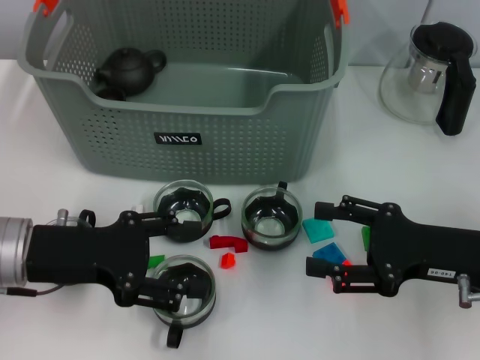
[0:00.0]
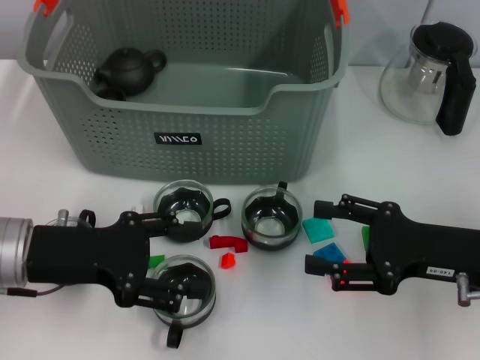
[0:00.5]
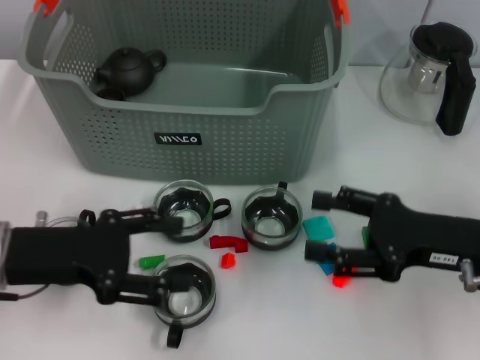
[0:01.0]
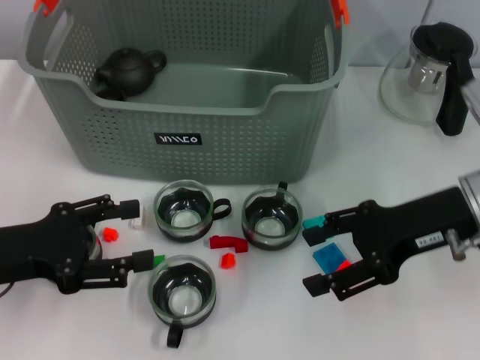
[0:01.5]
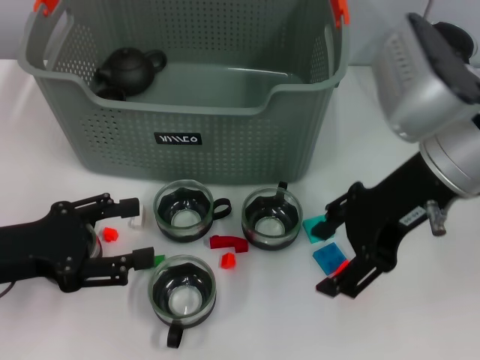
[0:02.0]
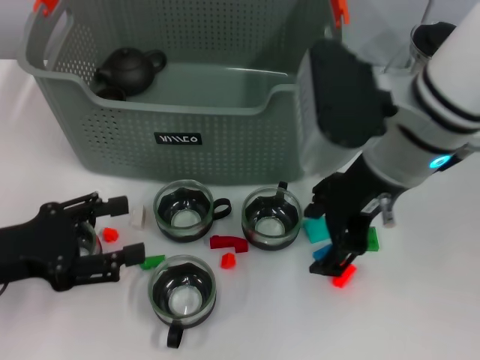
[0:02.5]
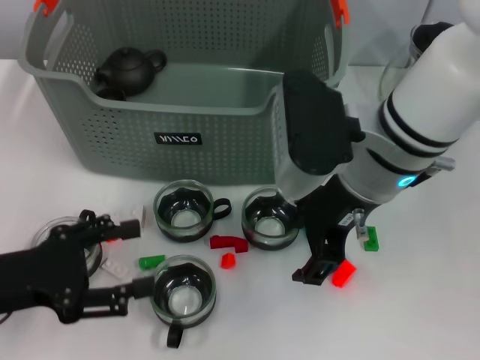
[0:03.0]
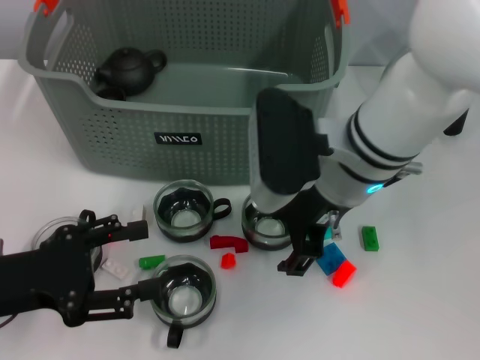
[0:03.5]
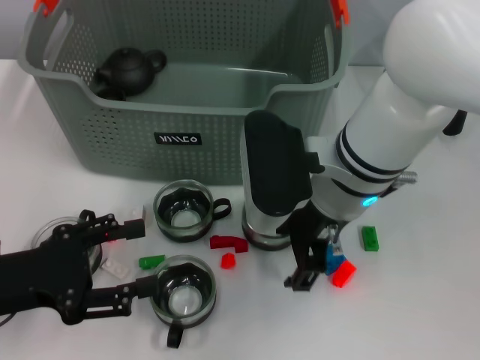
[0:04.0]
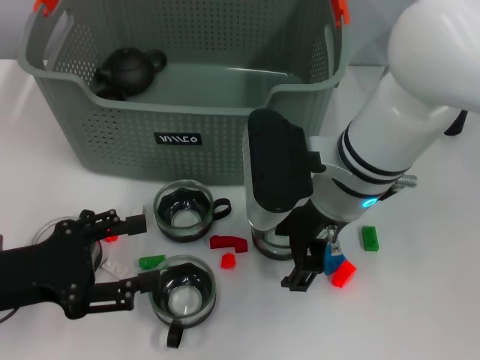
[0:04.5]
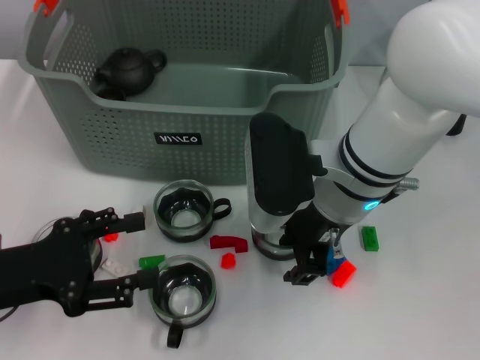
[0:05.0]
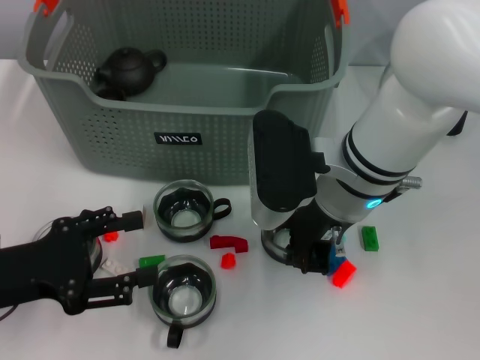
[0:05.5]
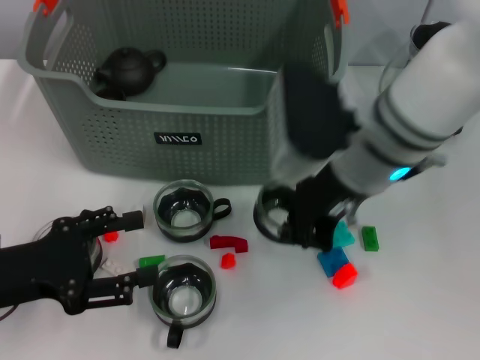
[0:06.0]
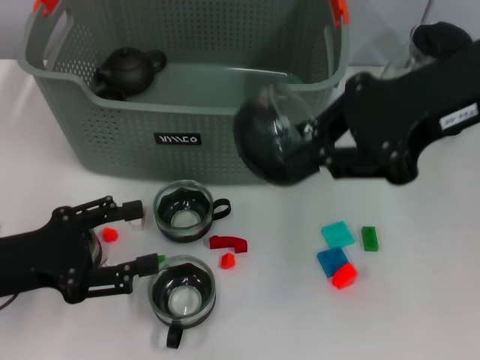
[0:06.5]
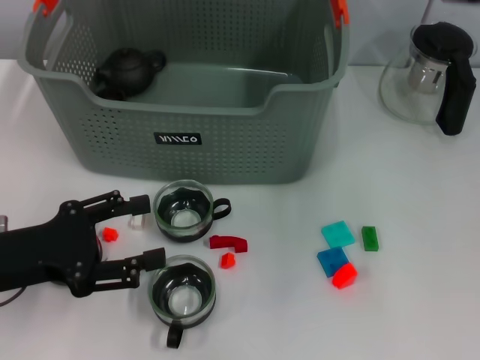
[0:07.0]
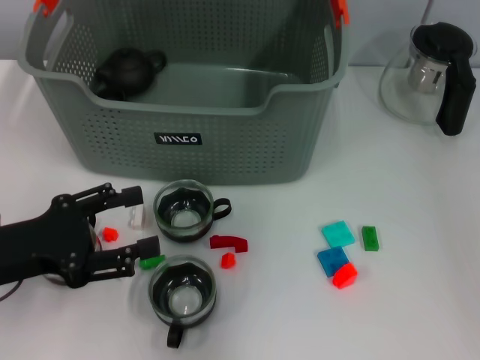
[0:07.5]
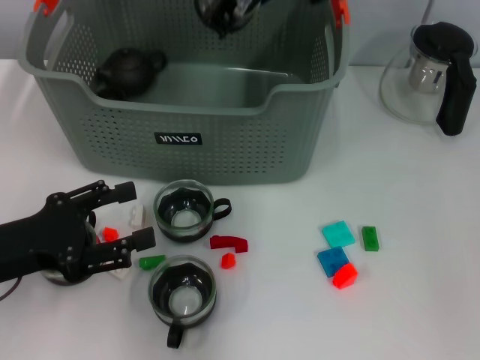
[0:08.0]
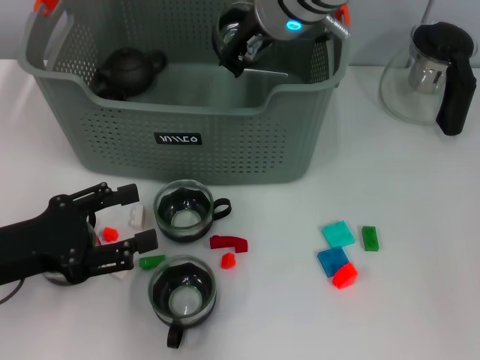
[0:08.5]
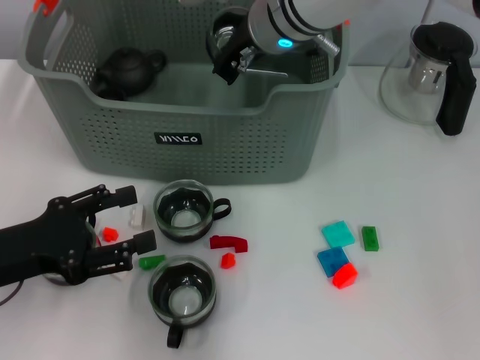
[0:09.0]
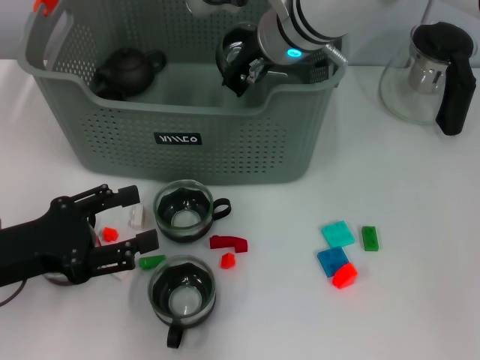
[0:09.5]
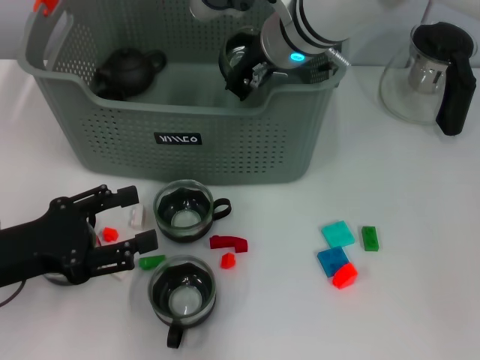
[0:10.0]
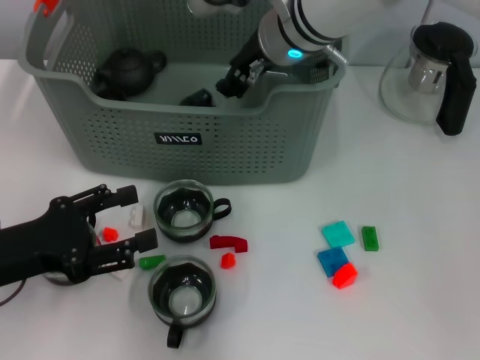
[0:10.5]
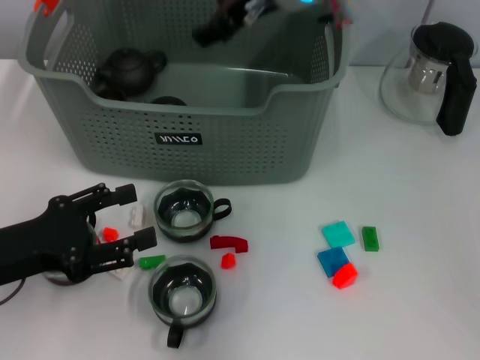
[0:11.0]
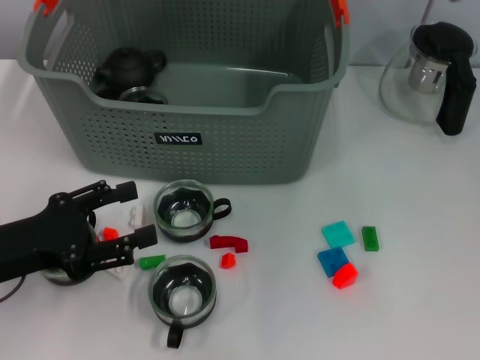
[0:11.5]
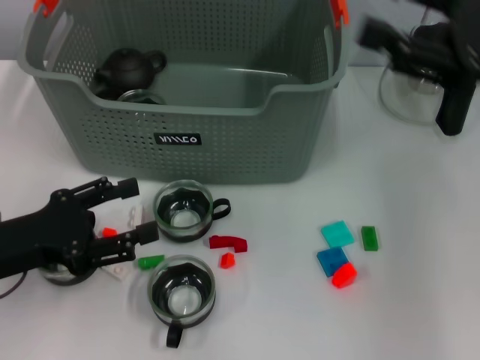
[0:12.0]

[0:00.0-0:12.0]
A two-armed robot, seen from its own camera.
Task of the whole recording: pick up the teacup on the table and place it into the storage bin, pick up the block on the table and place it into the storage bin.
Step, 0:00.0 to 0:05.5: Grasp the cup with right gripper.
Step, 0:06.0 to 0:10.0: Place the cup in the storage box with right gripper.
0:00.0 to 0:02.0: The left gripper moves roughly 5 cm; the right gripper heads upward, to the left and forward, covering roughly 15 cm.
0:02.0 to 0:04.0: The right gripper is displaced to the left and downward by approximately 10 cm.
0:04.0 to 0:06.0: The right gripper closes its fingers.
0:06.0 to 0:08.0: The right gripper heads forward, upward and to the left, covering about 15 cm.
0:08.0 to 0:10.0: The right gripper travels downward by about 5 cm.
0:10.0 to 0:12.0: The right gripper shifts roughly 25 cm to the right and backward, and opens.

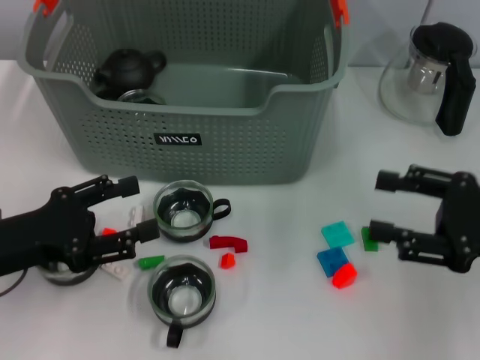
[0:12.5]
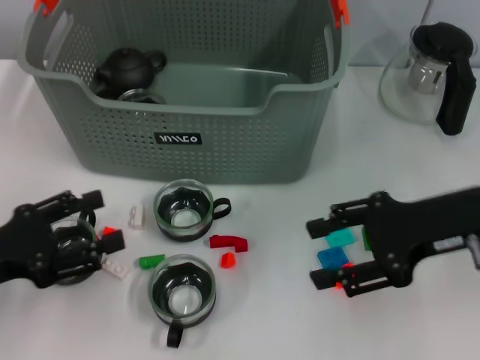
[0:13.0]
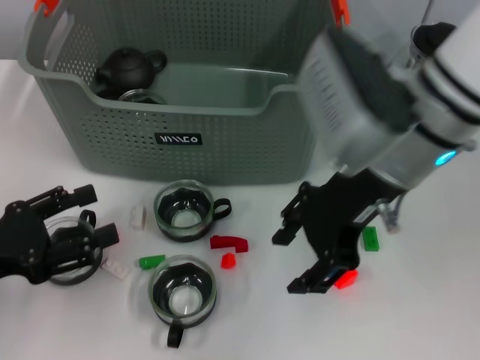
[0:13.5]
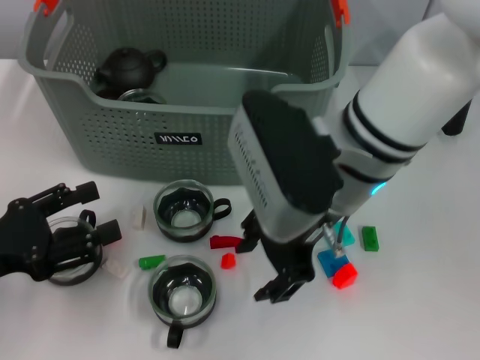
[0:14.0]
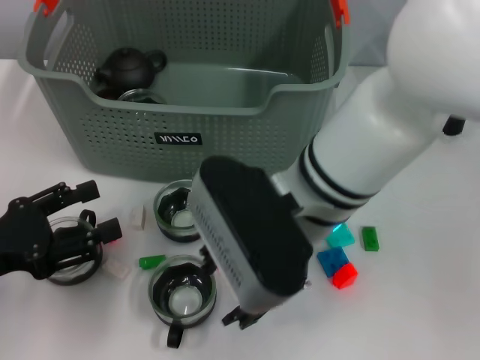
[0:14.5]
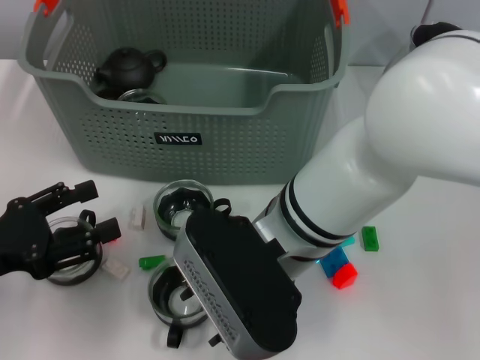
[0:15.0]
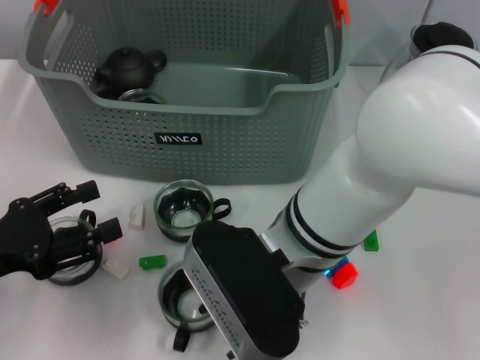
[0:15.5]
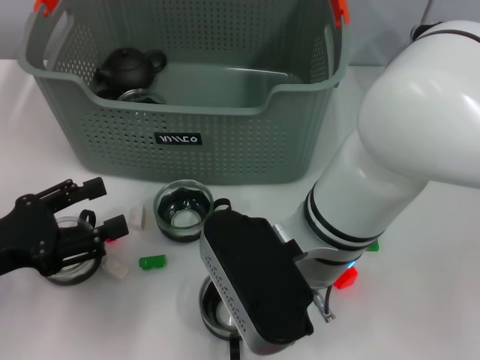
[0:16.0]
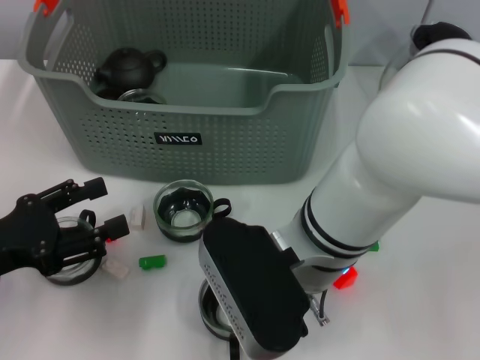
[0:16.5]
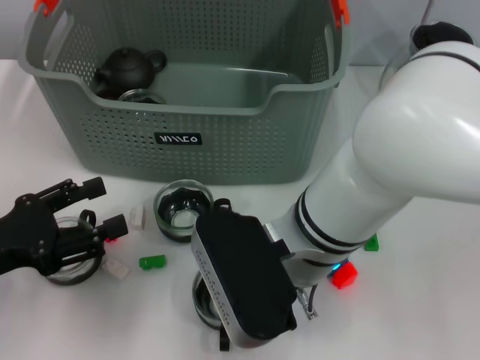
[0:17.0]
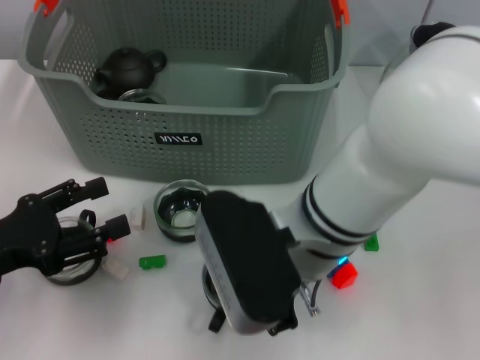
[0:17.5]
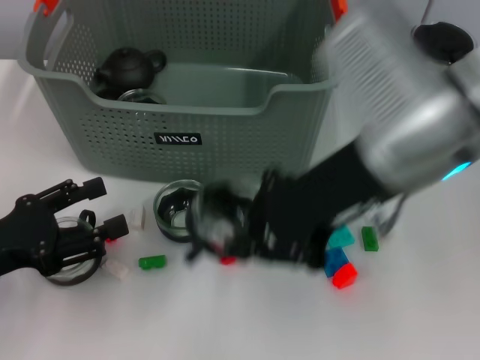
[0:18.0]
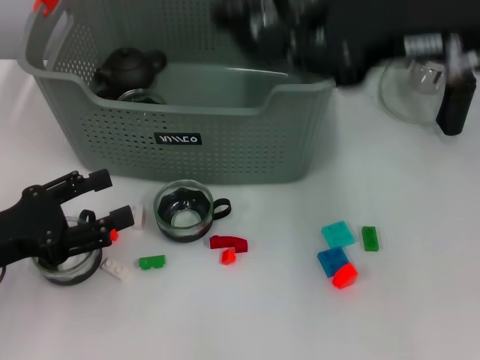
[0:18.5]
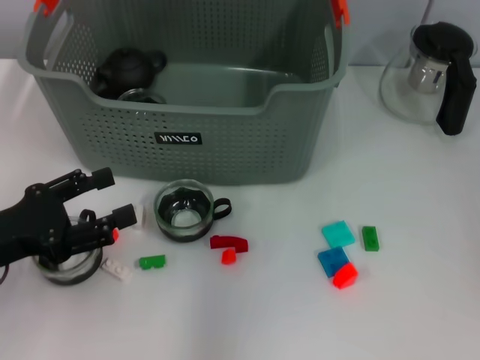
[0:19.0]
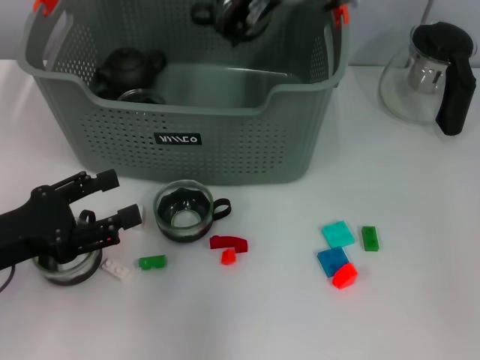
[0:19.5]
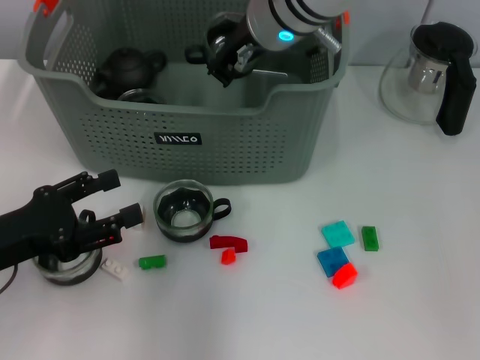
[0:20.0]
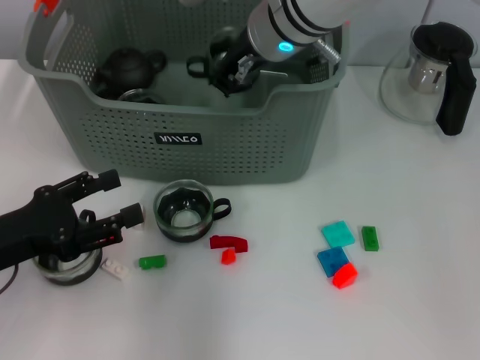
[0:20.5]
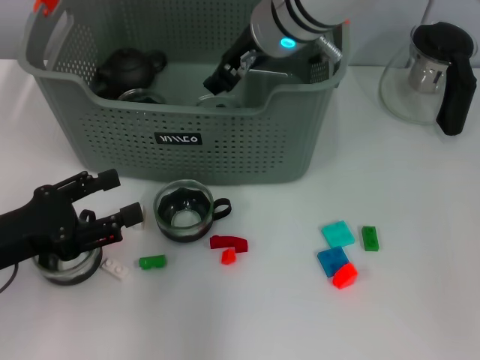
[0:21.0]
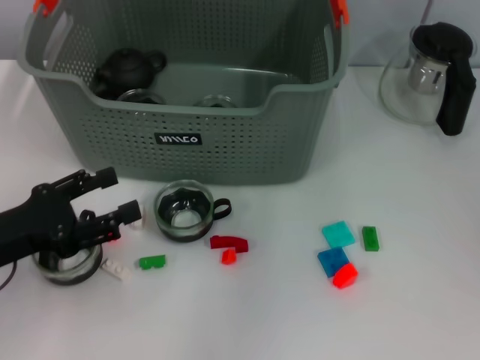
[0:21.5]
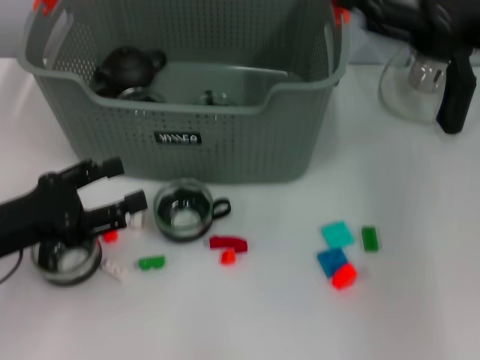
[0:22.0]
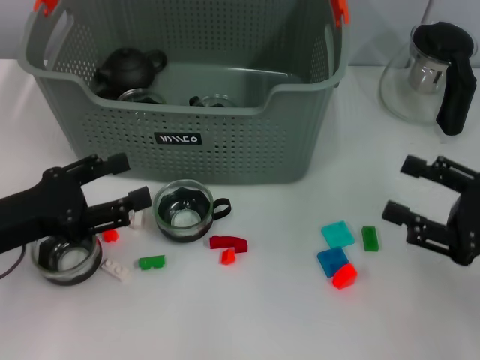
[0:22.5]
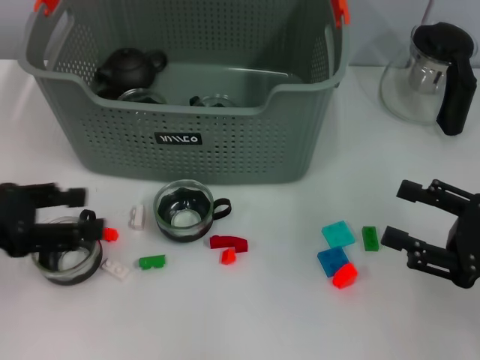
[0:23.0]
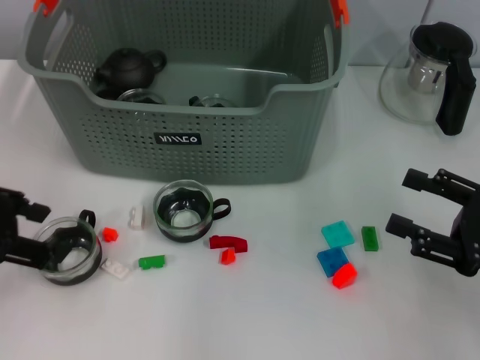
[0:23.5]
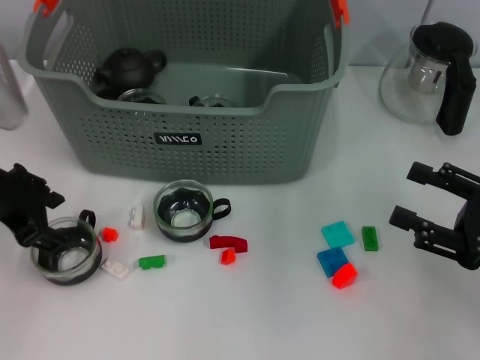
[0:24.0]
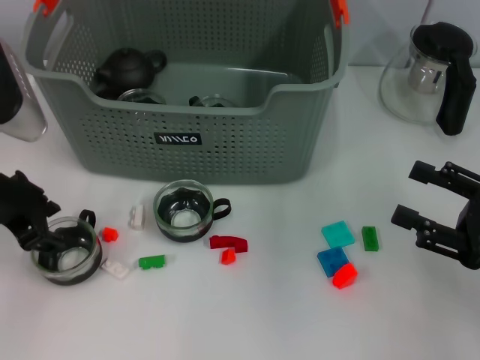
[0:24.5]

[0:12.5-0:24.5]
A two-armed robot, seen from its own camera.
Task of the whole recording: pick up the teacup on the table and place it into the storage bin, pick up the block on the table and place it into the storage bin.
Step, 0:12.5 to 0:17.0: Grasp the cup with right gripper.
Step, 0:17.5 to 0:20.5: Place the cup in the storage box with right gripper.
0:12.5 to 0:14.5: The right gripper heads to the left, covering approximately 25 cm.
0:16.5 to 0:18.5: The right gripper goes approximately 20 cm upward and to the right, and closes its fingers.
0:18.5 to 0:20.5: The right gripper moves to the left, forward and downward, some 20 cm.
0:20.5 to 0:22.5: The right gripper goes some 35 cm to the right, backward and downward, and opens its fingers.
0:22.5 to 0:24.5: The left gripper shifts roughly 10 cm upward and forward.

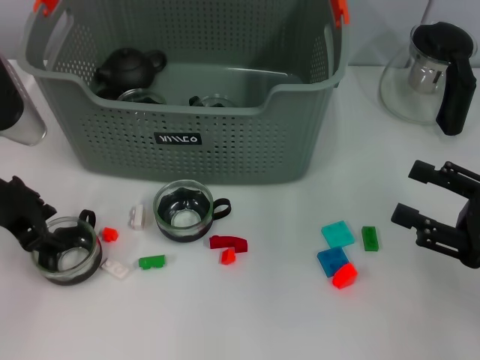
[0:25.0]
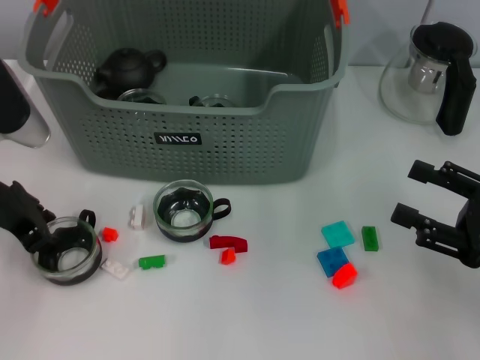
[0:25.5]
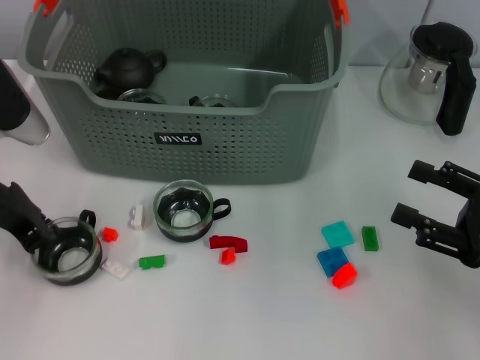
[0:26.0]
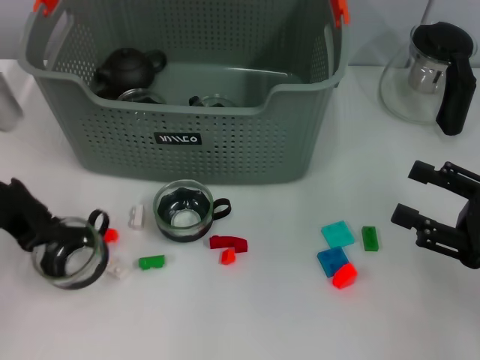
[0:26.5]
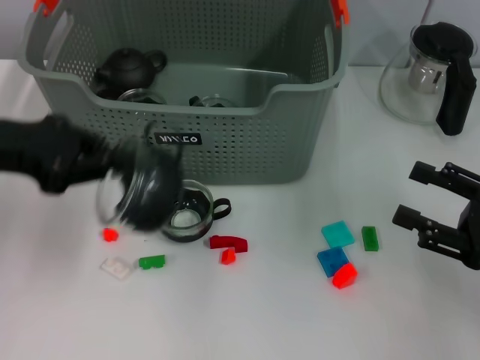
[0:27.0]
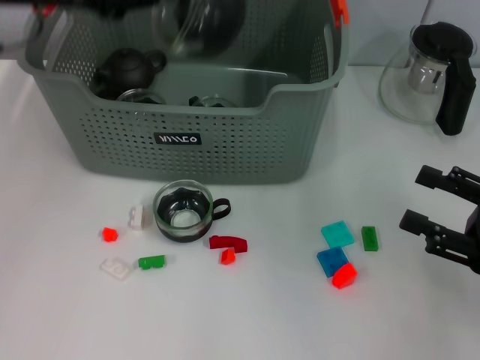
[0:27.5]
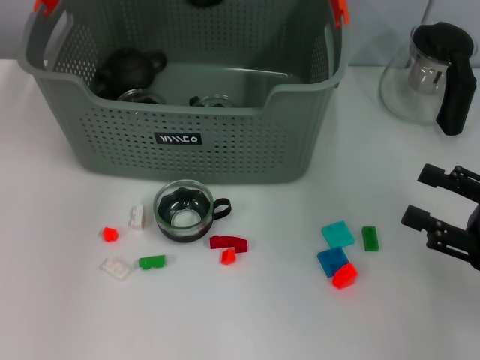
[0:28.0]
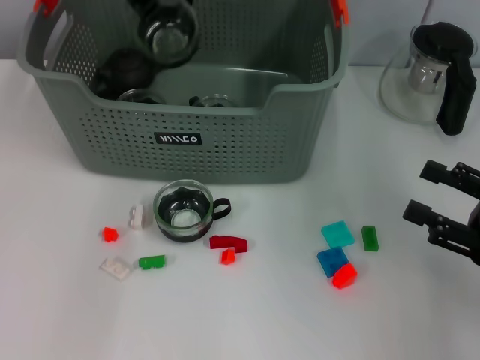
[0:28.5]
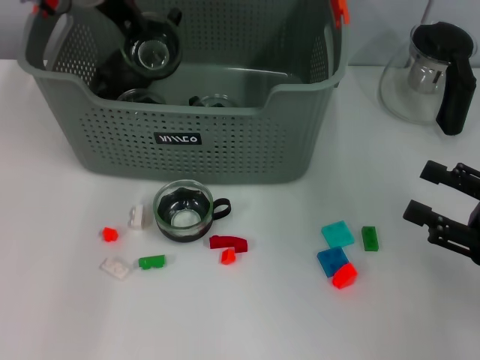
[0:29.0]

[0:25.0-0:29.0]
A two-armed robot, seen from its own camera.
Task of the whole recording: pick up the teacup on the table and place it into the storage bin, pick up the block on the table and place it into the storage bin.
0:25.0 to 0:27.0: The left gripper shifts by some 5 cm, and closes.
0:27.0 to 0:29.0: The left gripper shifts approximately 20 cm forward and to the right.
